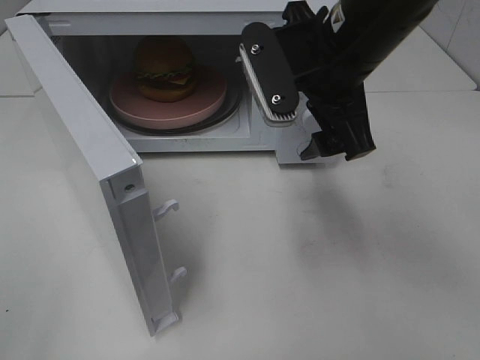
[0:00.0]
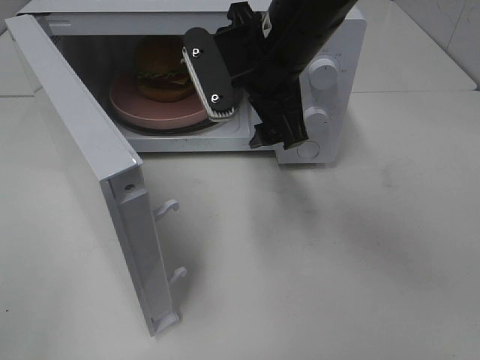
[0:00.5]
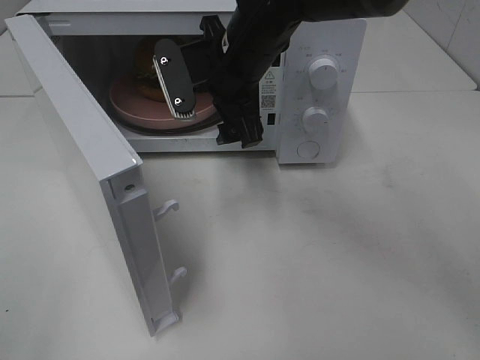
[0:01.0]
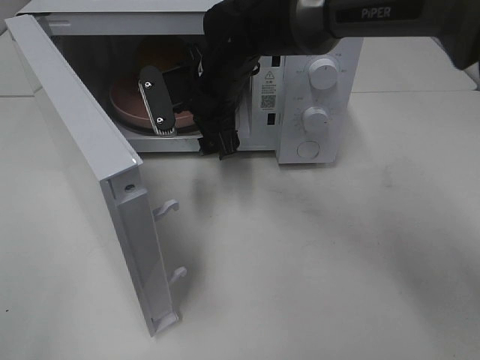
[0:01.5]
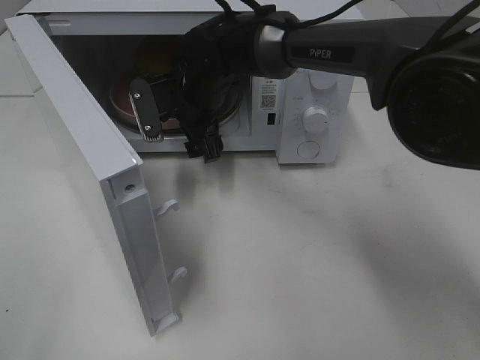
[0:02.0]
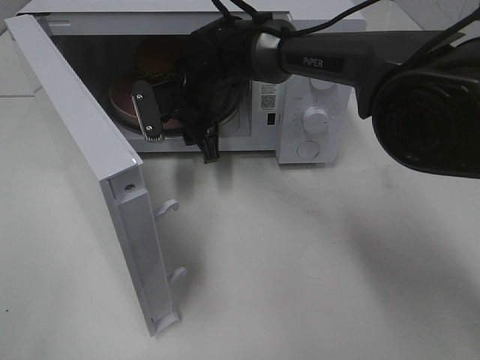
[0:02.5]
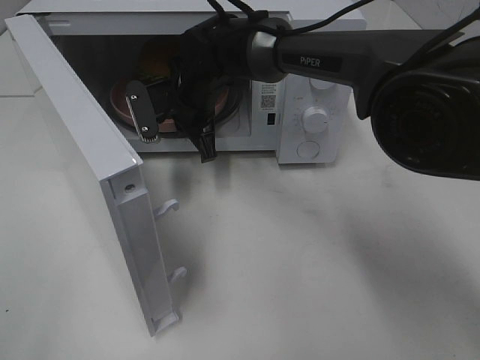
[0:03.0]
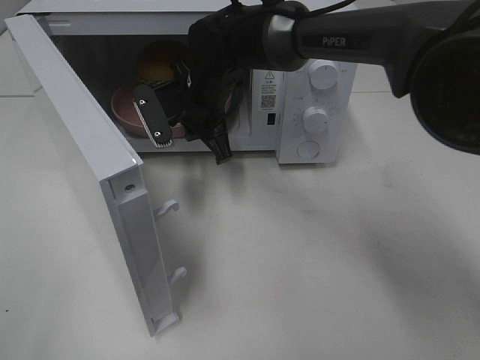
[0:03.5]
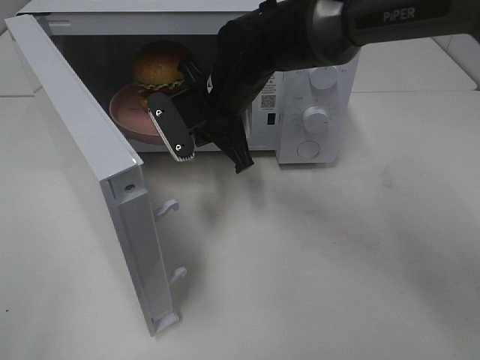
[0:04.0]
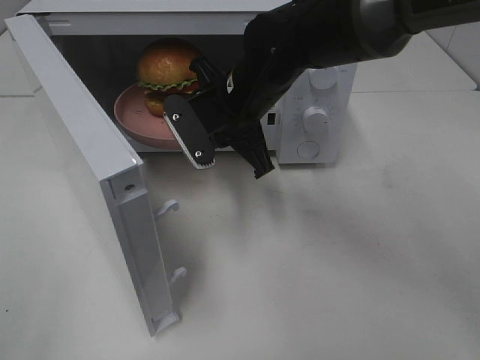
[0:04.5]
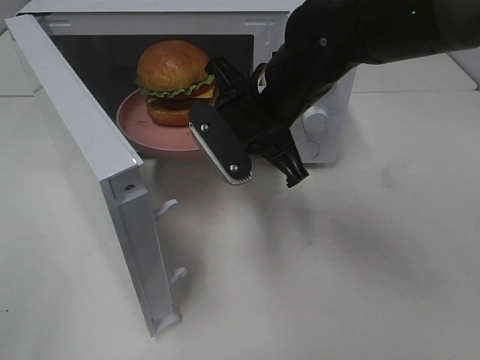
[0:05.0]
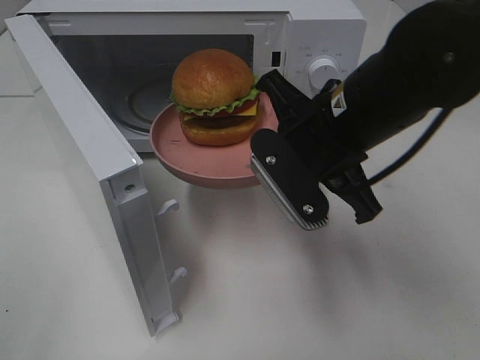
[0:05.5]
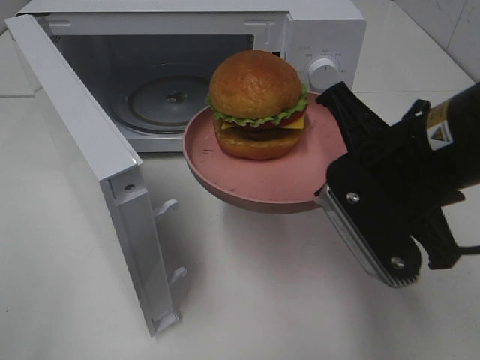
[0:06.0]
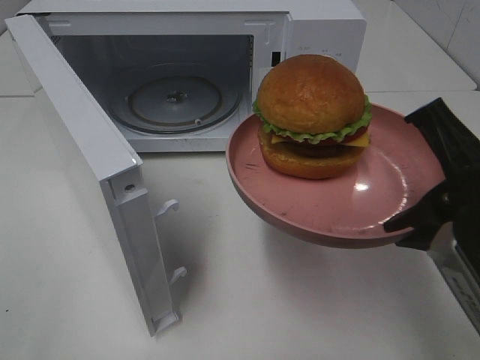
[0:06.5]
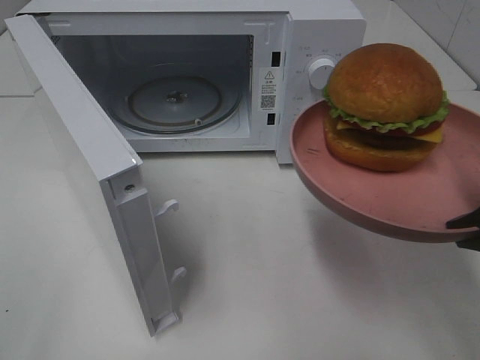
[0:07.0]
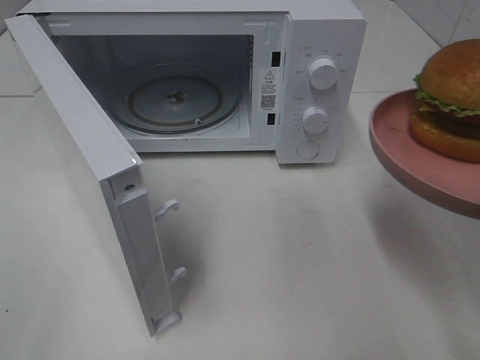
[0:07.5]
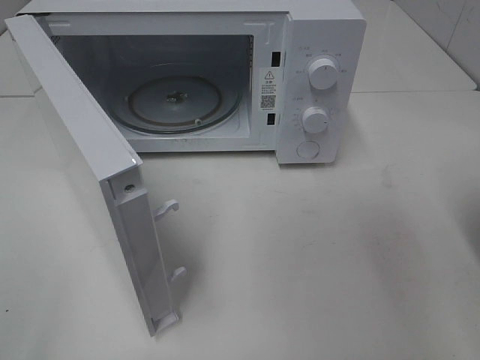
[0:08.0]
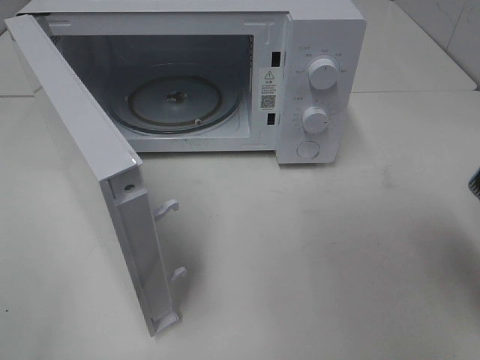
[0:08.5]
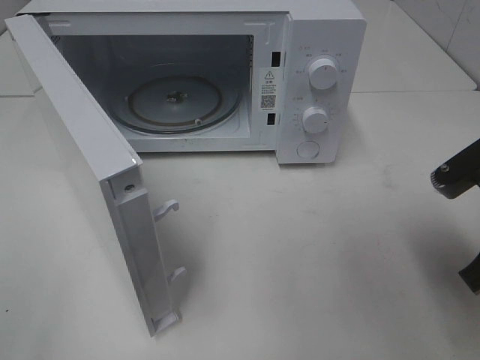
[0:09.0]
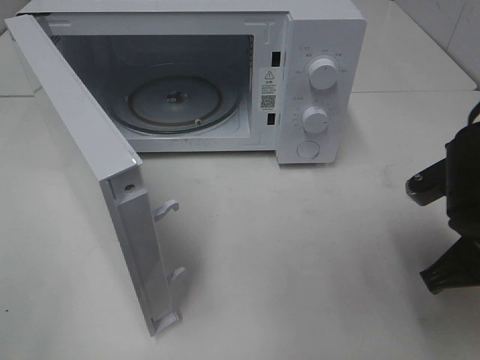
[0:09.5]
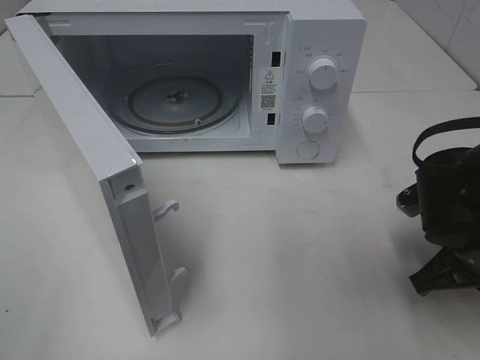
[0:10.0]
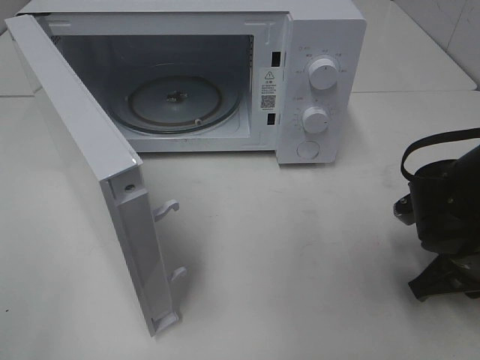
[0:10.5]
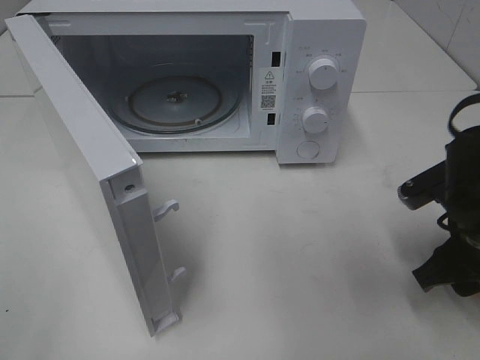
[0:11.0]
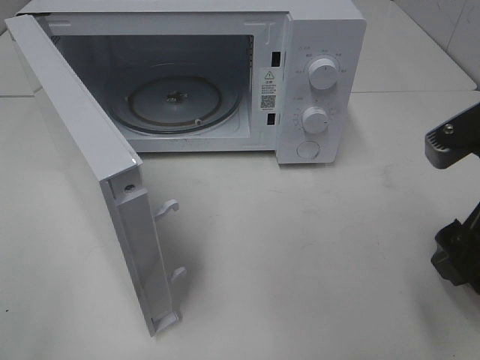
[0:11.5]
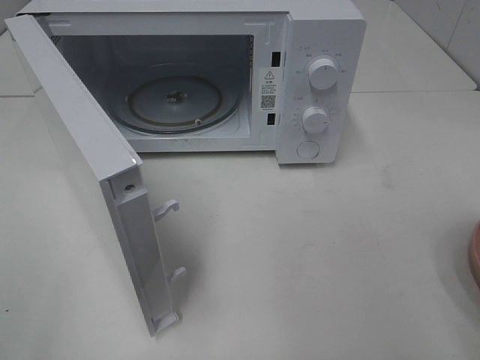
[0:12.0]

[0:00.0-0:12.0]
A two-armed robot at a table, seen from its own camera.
Task of the whole recording: Heat the burger.
Step, 0:00.0 to 0:02.5: Right hand: grab the plate with the hamburger.
Step, 0:03.0 to 0:11.0: Right hand: place the plate on the table.
0:00.0 to 0:02.0: The right gripper travels forward, to the left and downward by some 25 cm.
0:02.0 to 0:04.0: The right gripper moves backward, roughly 5 cm, and closes up.
0:04.0 to 0:06.0: The right gripper heads backward and to the right, covering some 25 cm.
0:06.0 to 0:08.0: The right gripper heads to the right and backward, covering about 15 cm.
0:08.0 to 0:10.0: The right gripper moves downward and forward, approximately 20 cm.
0:10.0 to 0:12.0: The right gripper moves upward and backward, some 20 cm, and opens.

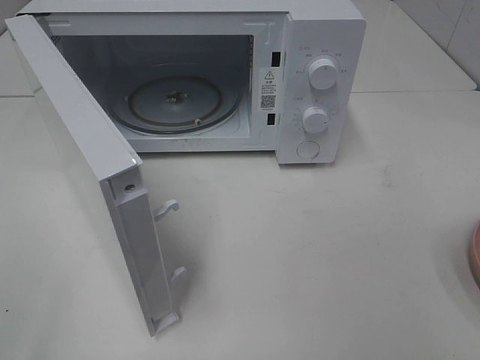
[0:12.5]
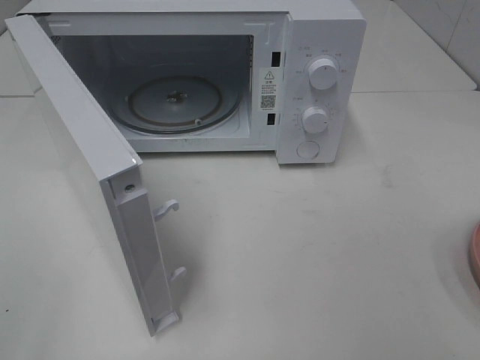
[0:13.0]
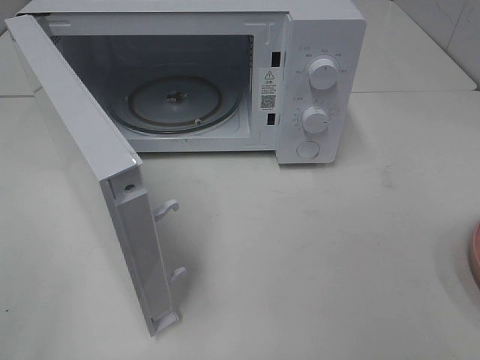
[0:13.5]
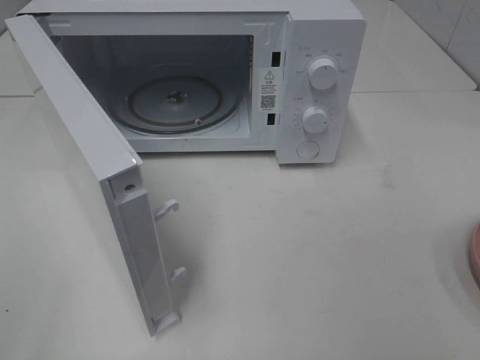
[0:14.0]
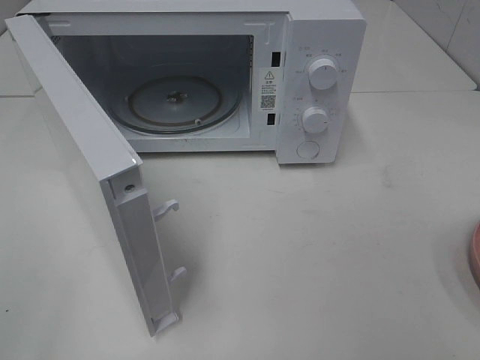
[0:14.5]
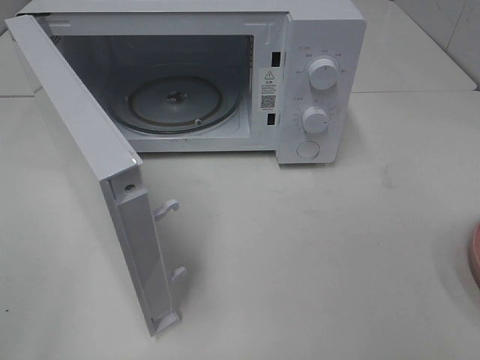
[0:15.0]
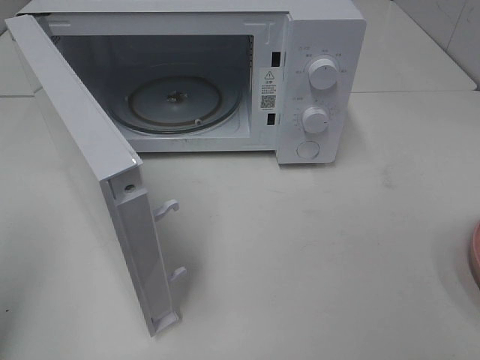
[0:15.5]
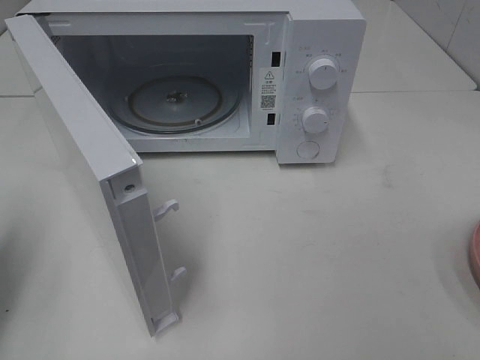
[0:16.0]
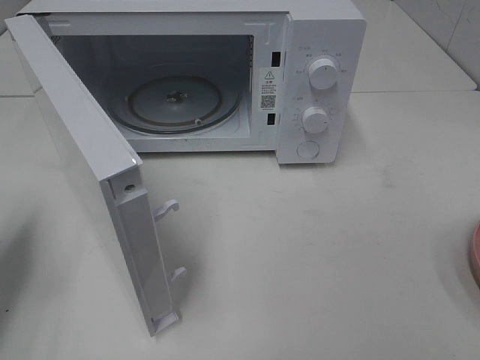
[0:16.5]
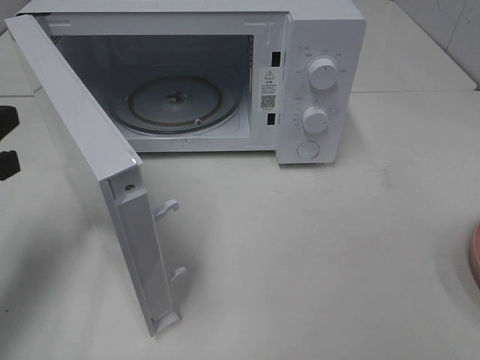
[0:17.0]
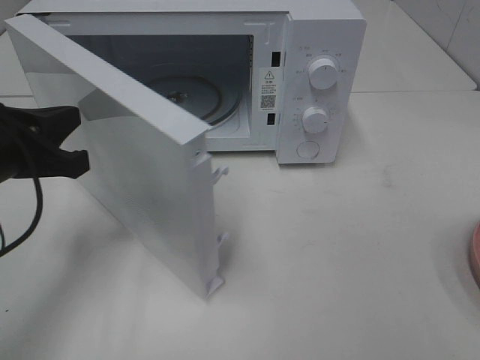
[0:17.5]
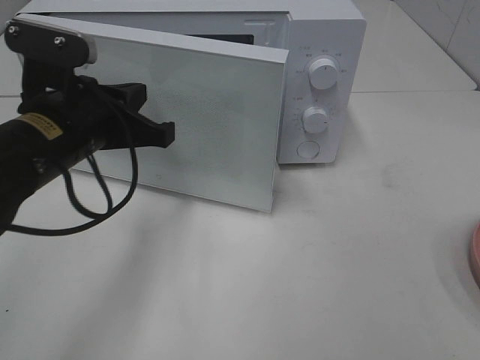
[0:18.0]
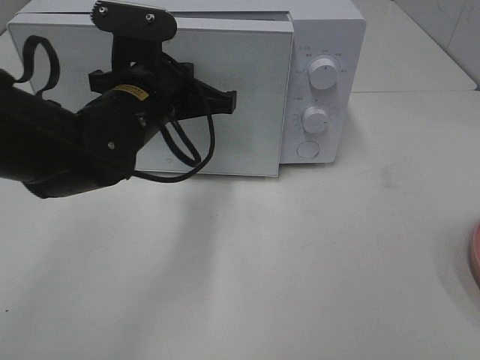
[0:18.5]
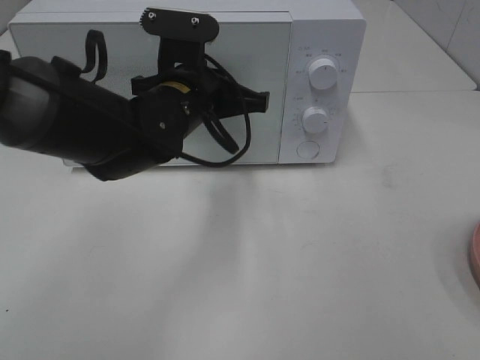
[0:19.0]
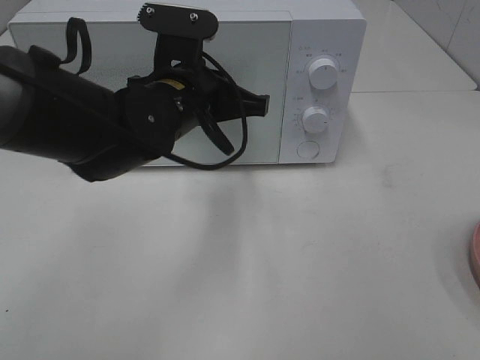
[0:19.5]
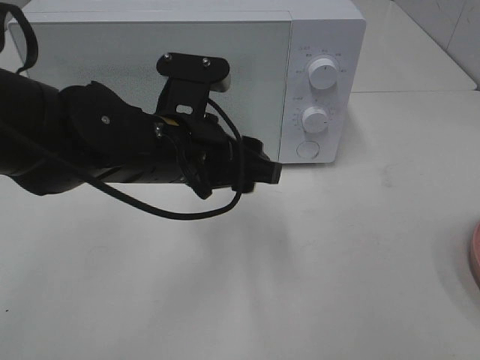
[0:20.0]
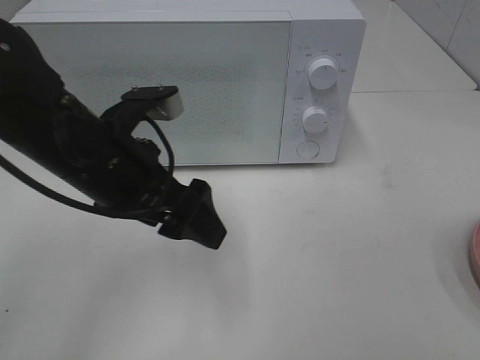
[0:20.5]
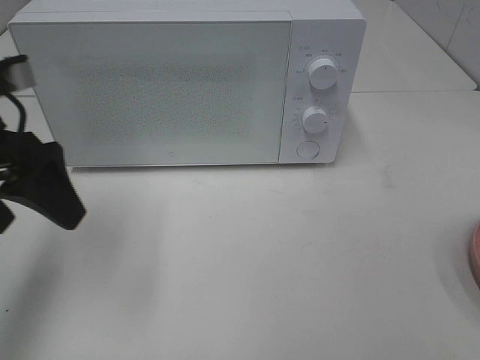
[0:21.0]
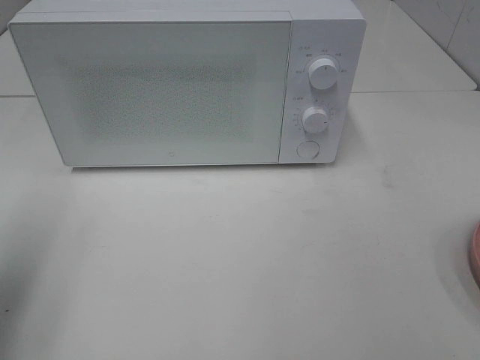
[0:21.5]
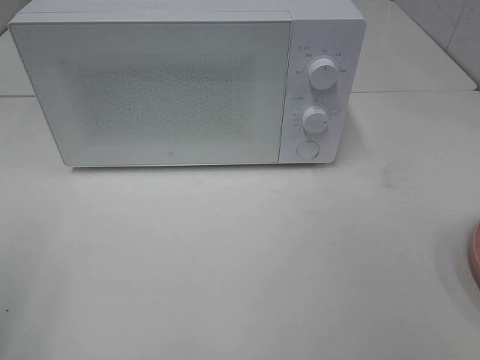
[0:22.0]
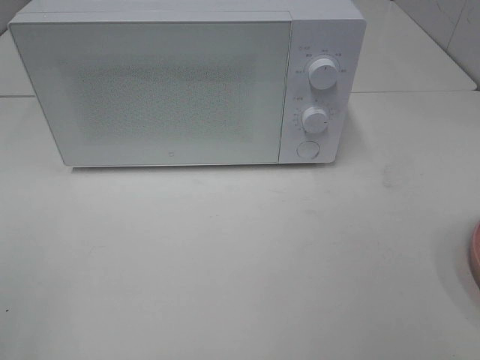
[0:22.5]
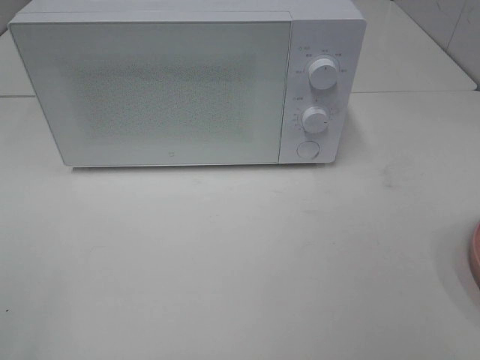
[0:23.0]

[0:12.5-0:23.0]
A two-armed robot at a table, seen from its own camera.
Task of the whole recording: Heat the burger.
Step, 0:12.5 to 0:19.5: Left hand: close the microwave door.
0:14.5 to 0:16.5: The left gripper heads forward and downward, covering roughly 20 cm, and closes its fingers.
0:16.5 to 0:19.0: The left gripper travels to the right and forward by about 30 cm.
0:19.0 to 0:21.0: The left gripper heads to the left and backward, covering approximately 20 cm, and opens up.
0:21.0 to 0:23.0: The left gripper shifts roughly 25 cm backward.

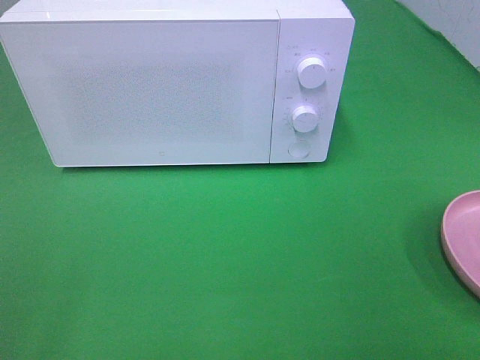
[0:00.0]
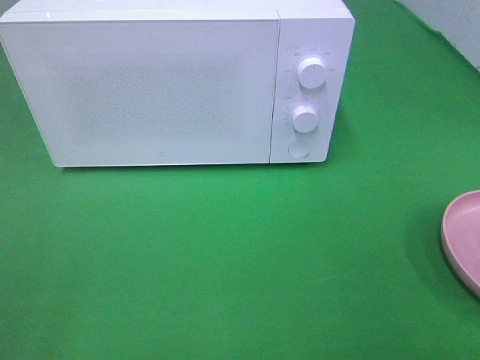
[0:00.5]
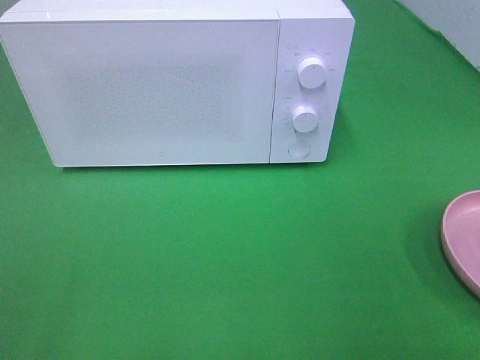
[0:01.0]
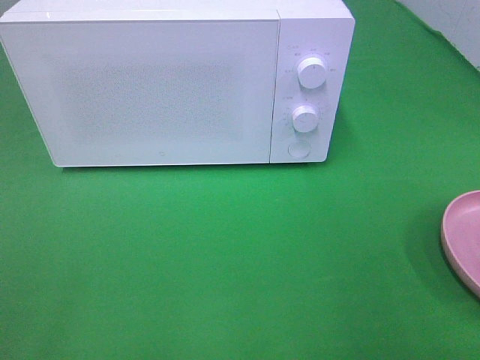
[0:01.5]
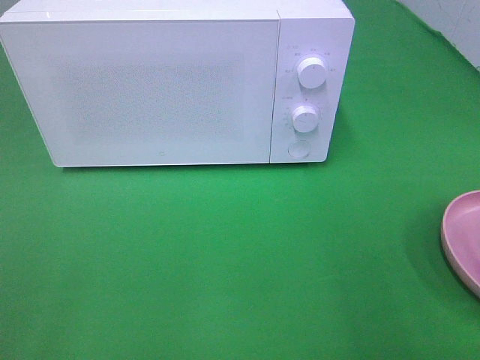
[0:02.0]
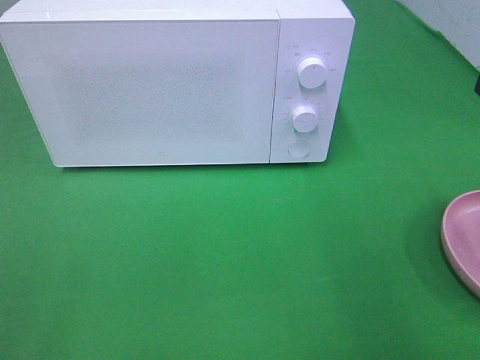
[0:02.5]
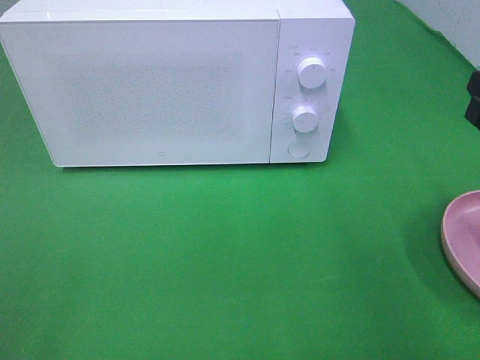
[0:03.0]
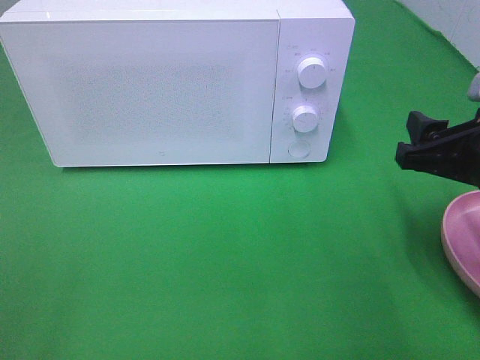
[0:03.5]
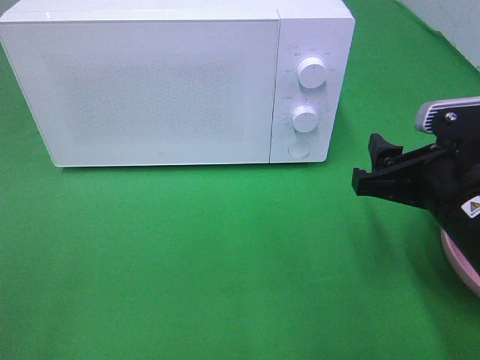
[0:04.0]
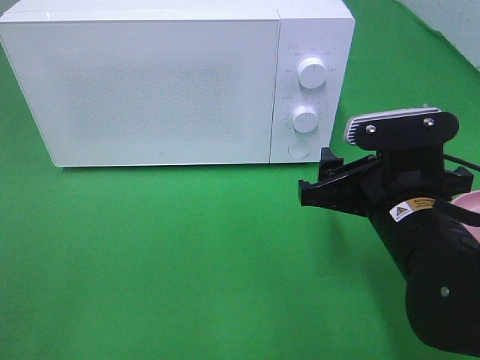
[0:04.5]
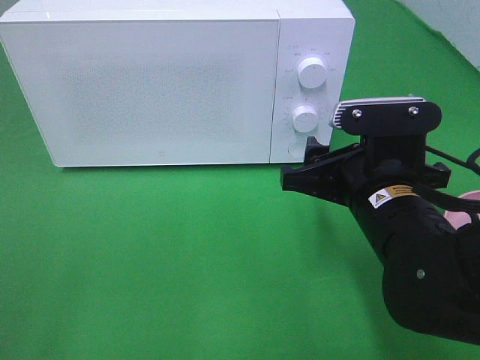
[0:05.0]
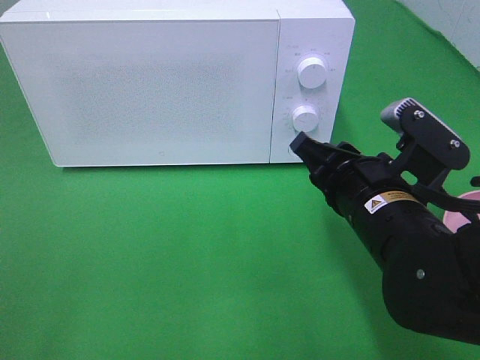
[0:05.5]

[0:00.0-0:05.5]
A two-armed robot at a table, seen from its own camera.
Task of the whole recording: Heat the burger.
0:02.0 to 0:03.5: The right gripper heads downward and forward, covering approximately 10 cm.
0:03.5 to 0:05.5: The right gripper travels to the left by about 10 cm, and closes its fingers.
